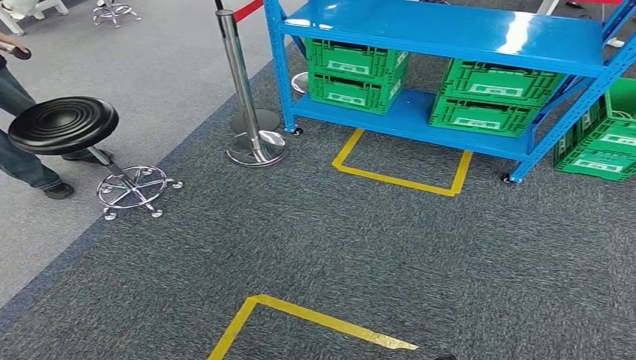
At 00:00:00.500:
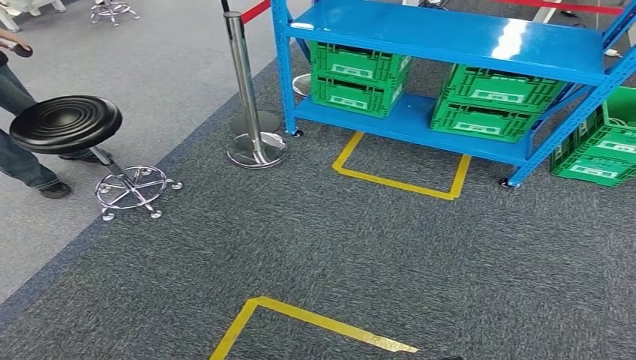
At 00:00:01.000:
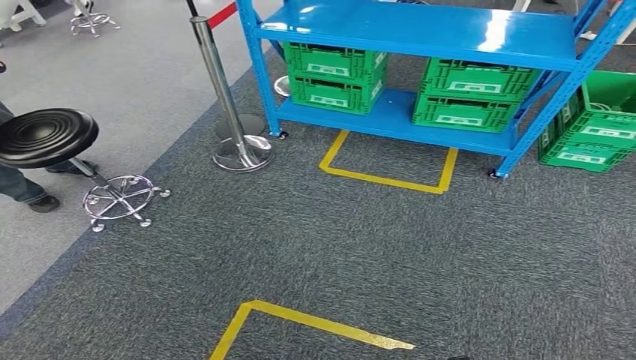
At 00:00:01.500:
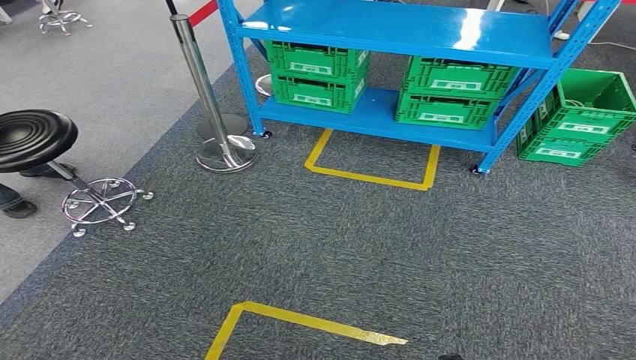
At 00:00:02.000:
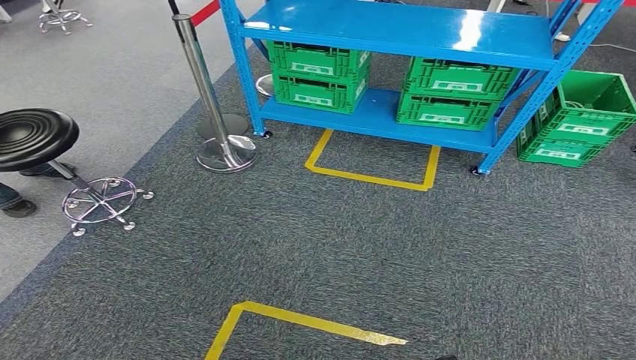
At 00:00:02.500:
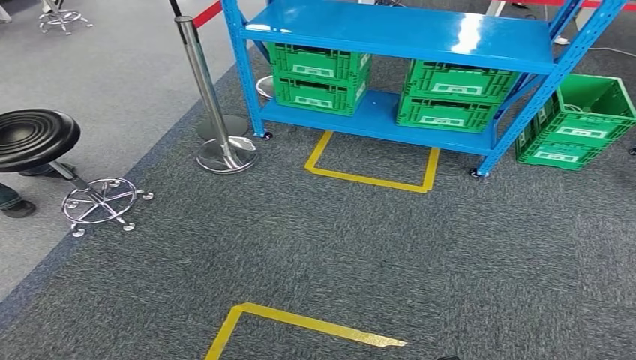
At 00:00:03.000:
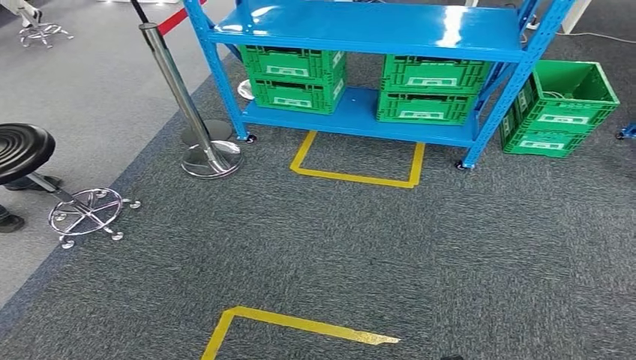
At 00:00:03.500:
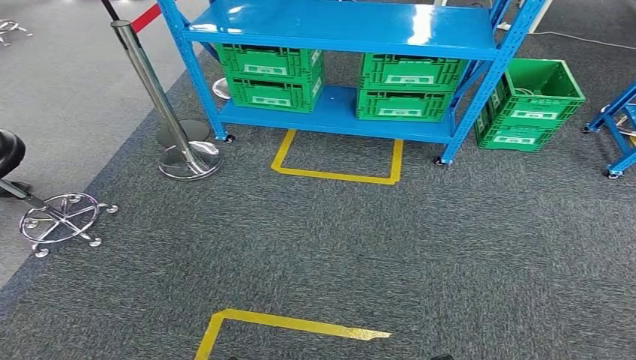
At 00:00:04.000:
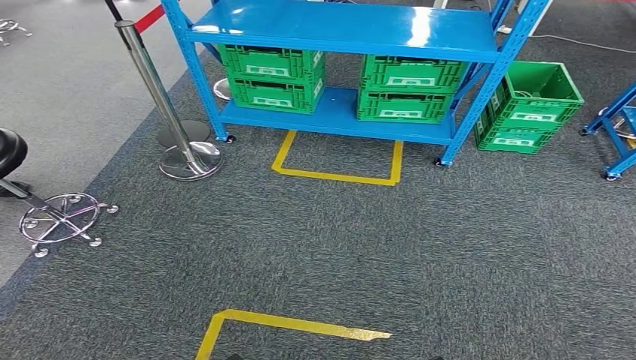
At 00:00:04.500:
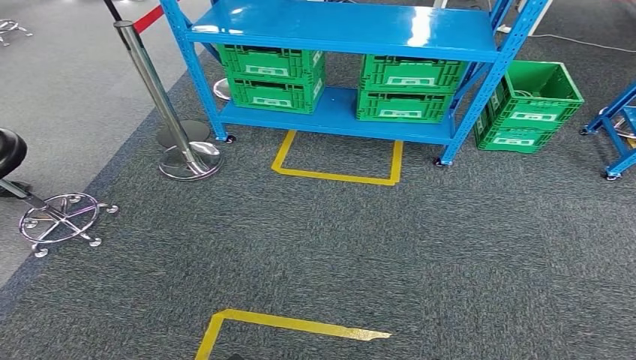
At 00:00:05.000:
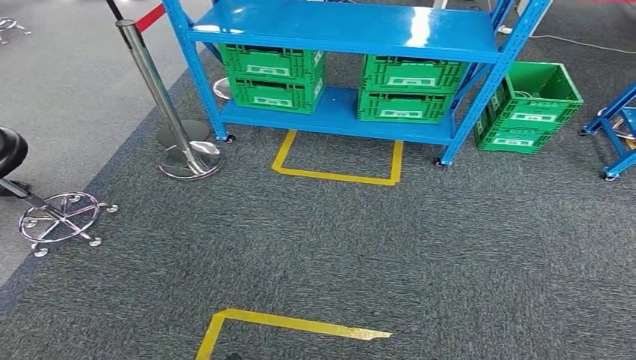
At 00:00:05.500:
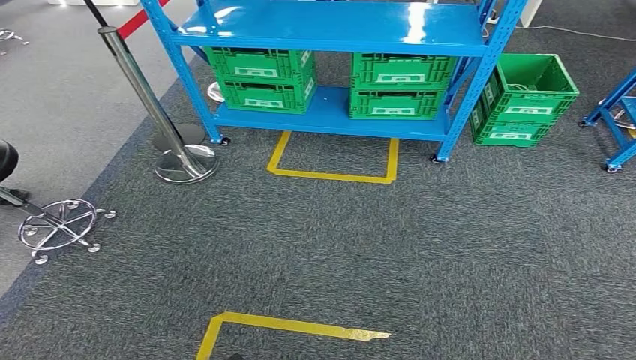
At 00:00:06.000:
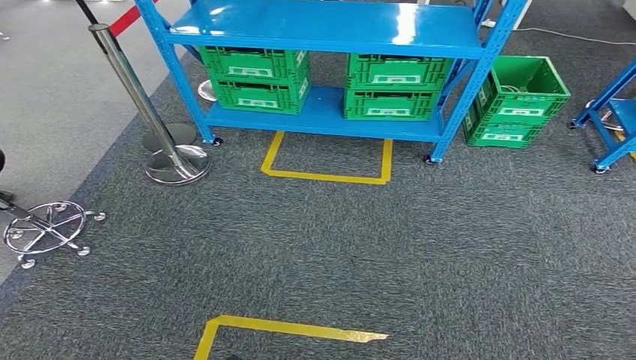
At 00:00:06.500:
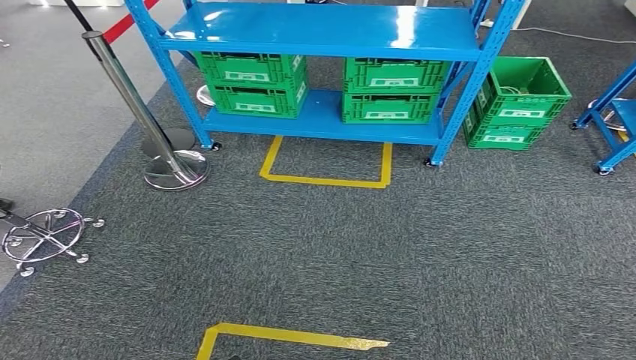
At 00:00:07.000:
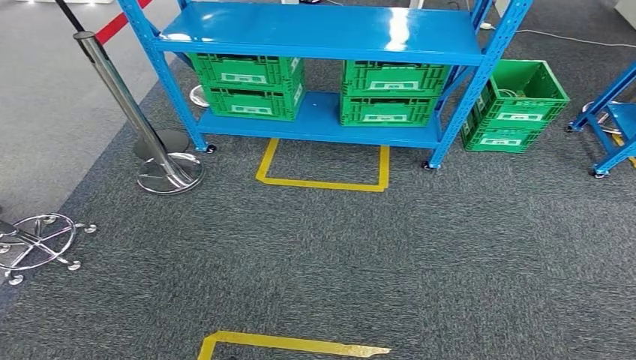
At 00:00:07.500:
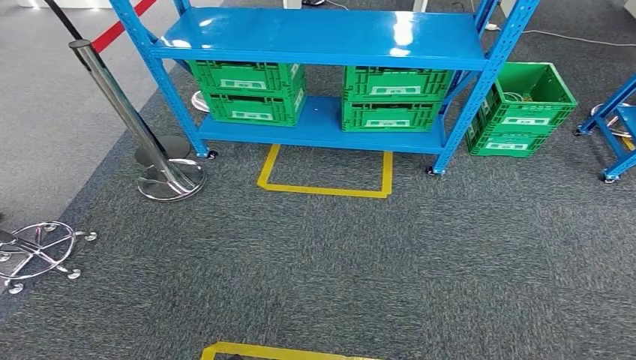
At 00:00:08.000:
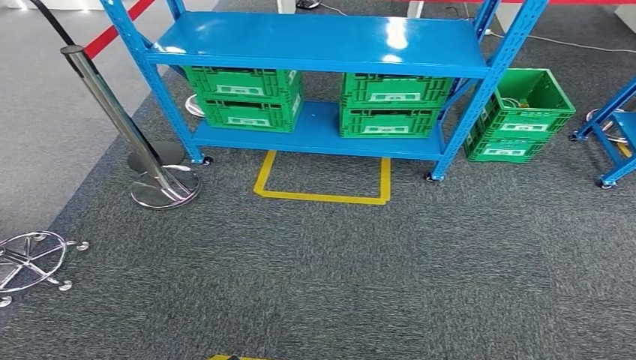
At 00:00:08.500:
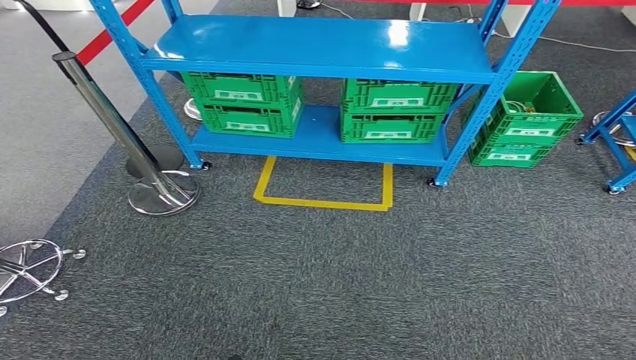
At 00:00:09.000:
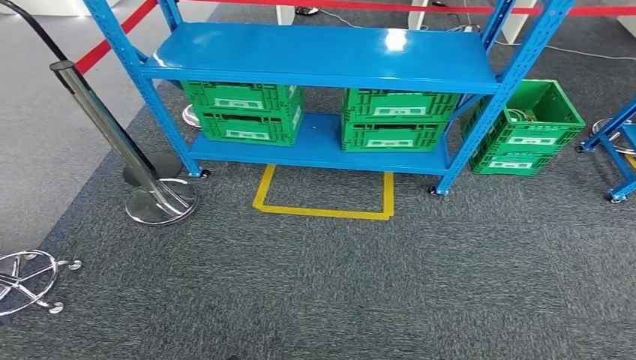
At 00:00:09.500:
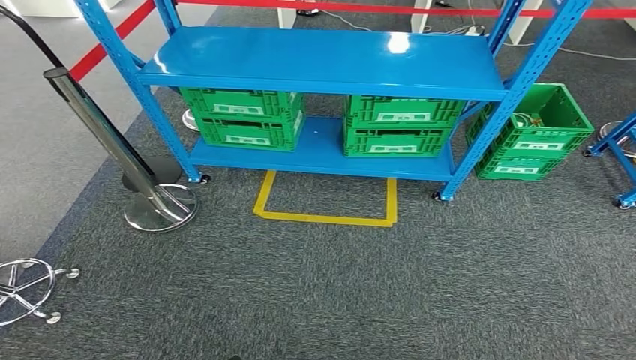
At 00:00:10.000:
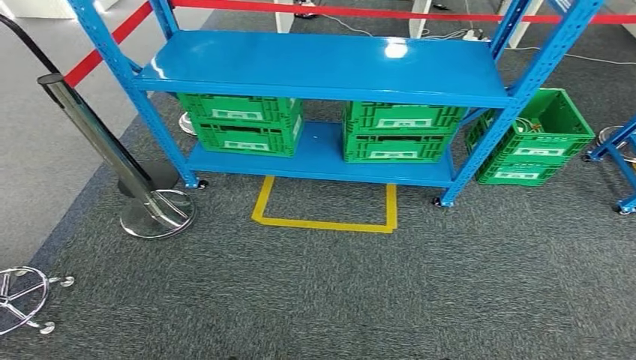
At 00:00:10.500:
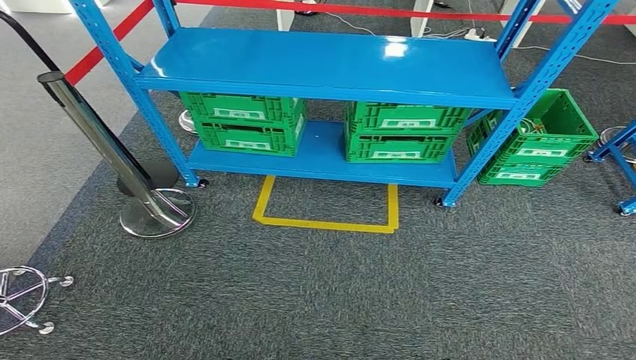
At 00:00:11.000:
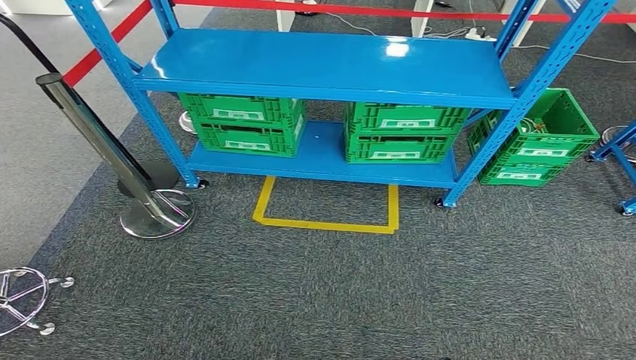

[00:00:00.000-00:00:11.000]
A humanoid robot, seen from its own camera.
Step, 00:00:00.000 to 00:00:11.000: Move to the initial position of the workbench.
00:00:03.500 to 00:00:05.500: The hands make only small movements.

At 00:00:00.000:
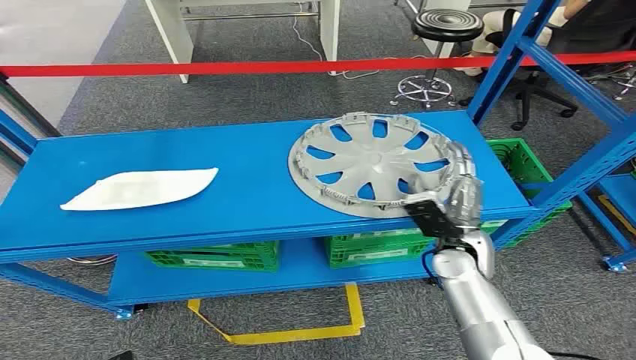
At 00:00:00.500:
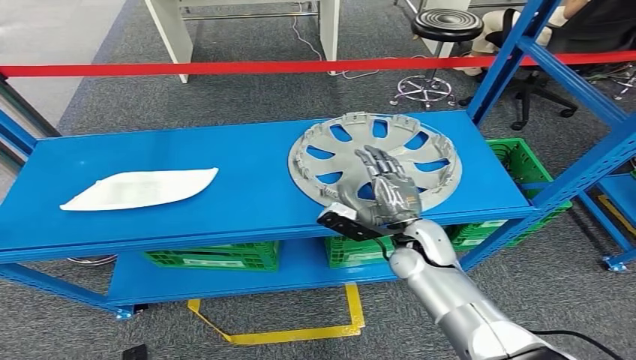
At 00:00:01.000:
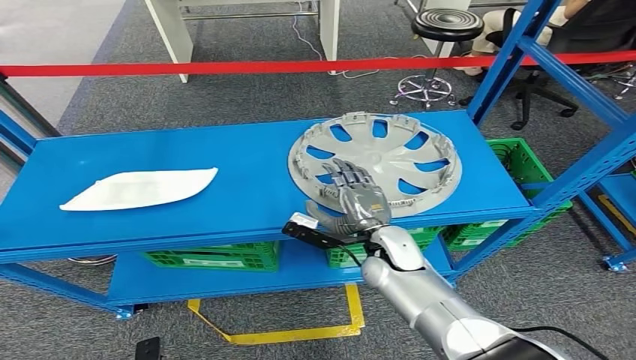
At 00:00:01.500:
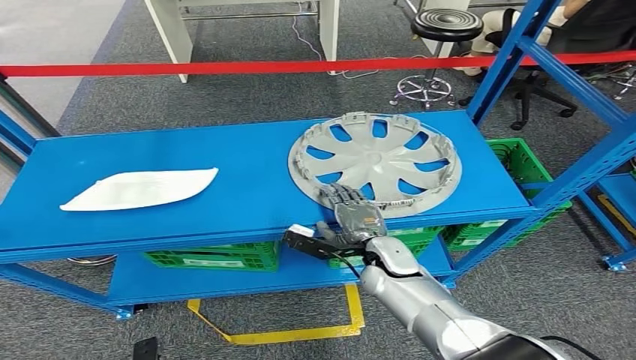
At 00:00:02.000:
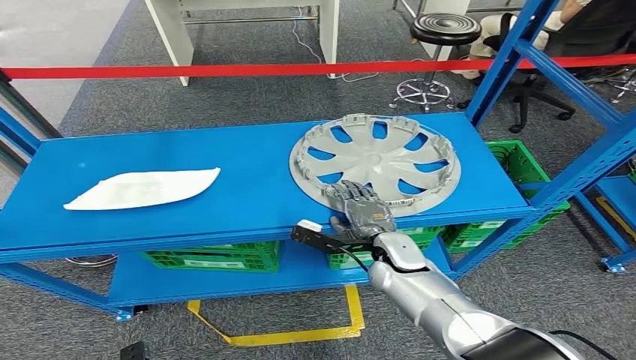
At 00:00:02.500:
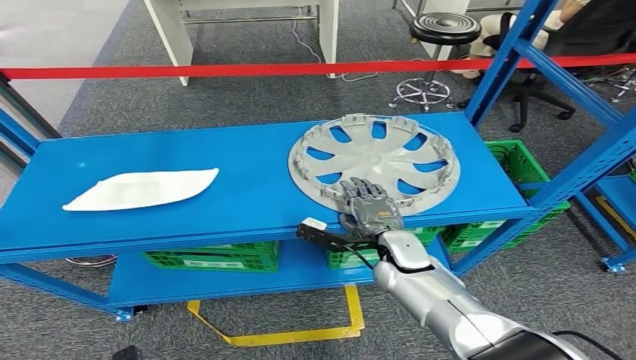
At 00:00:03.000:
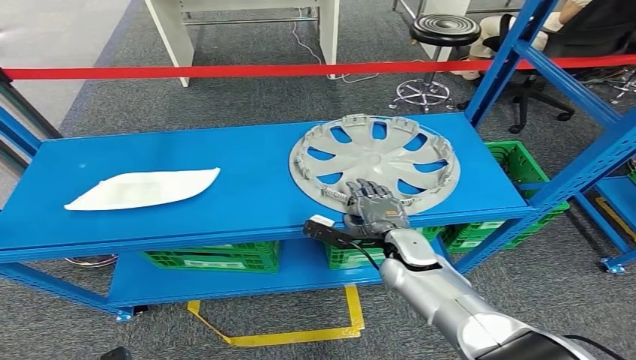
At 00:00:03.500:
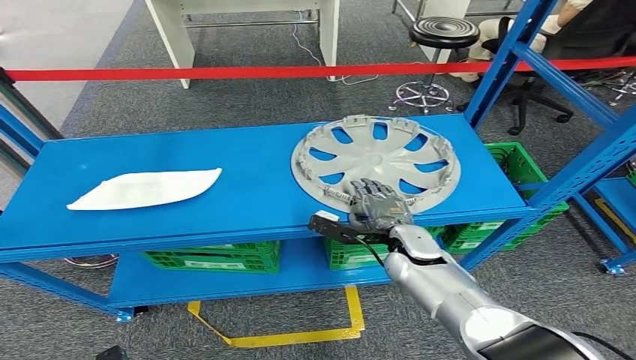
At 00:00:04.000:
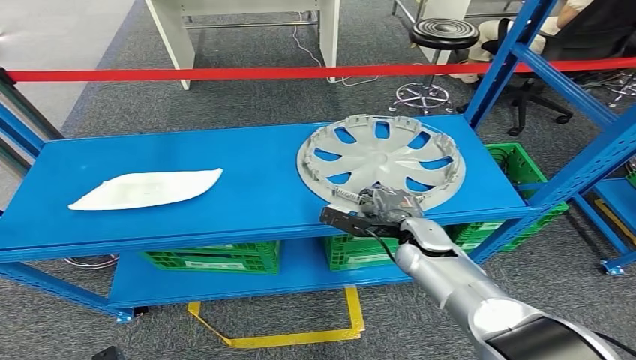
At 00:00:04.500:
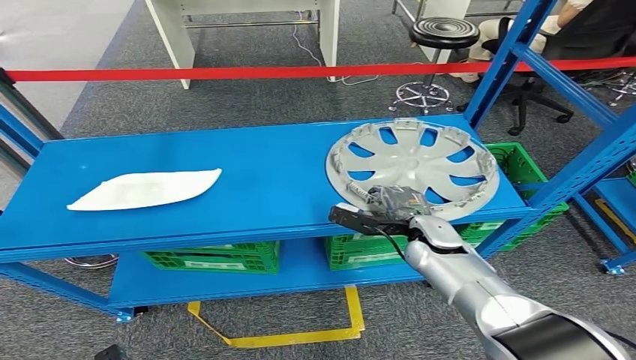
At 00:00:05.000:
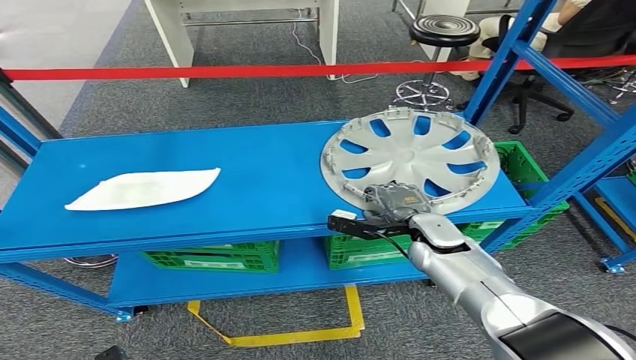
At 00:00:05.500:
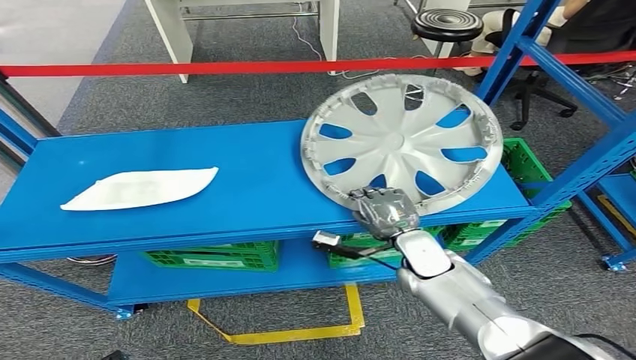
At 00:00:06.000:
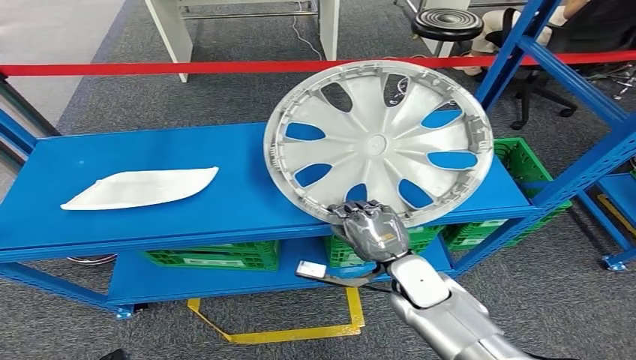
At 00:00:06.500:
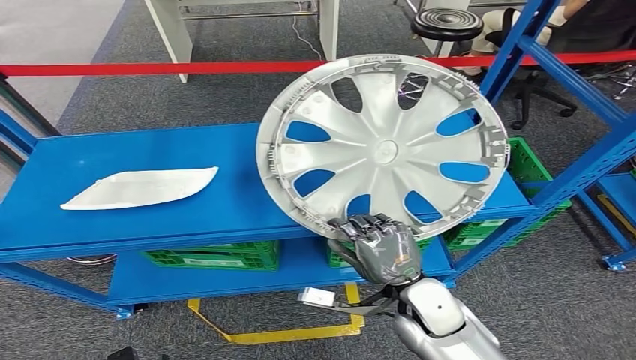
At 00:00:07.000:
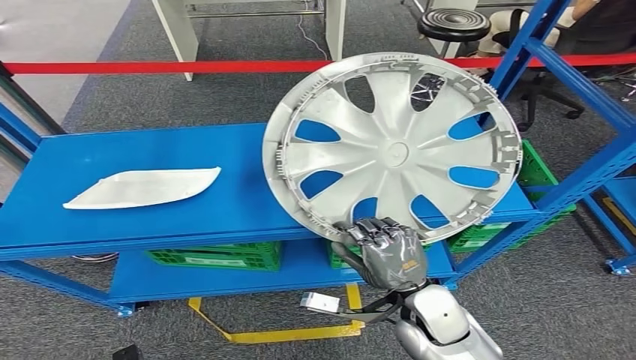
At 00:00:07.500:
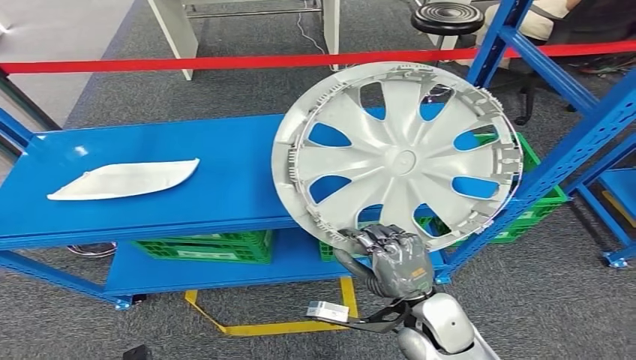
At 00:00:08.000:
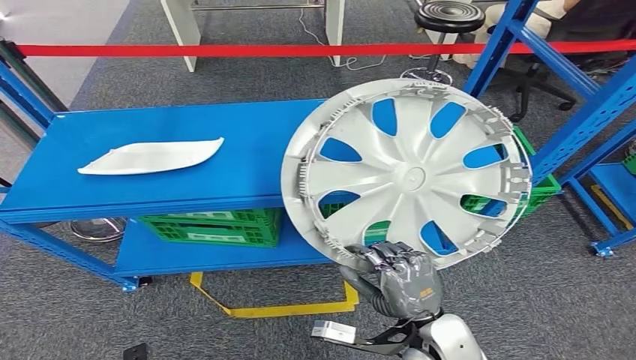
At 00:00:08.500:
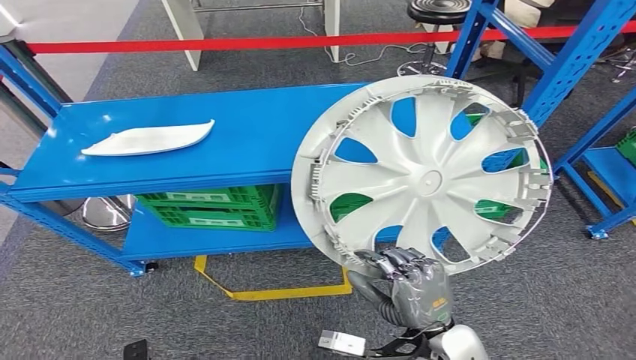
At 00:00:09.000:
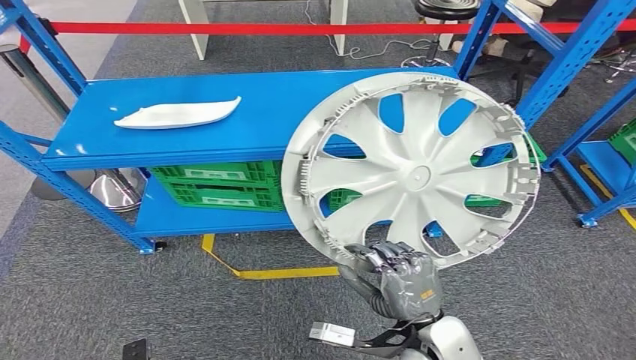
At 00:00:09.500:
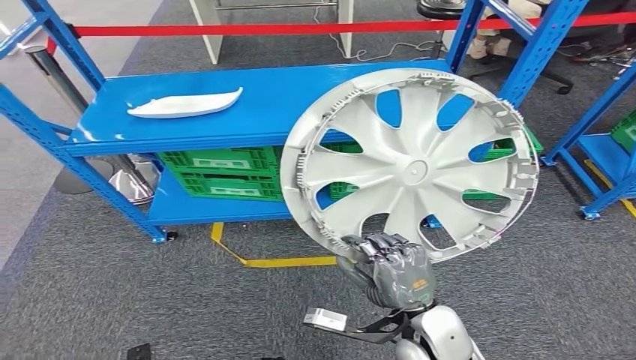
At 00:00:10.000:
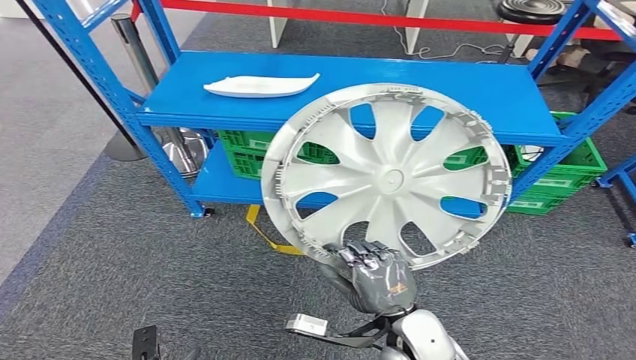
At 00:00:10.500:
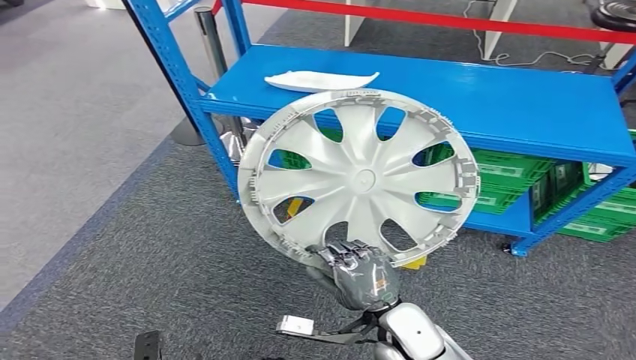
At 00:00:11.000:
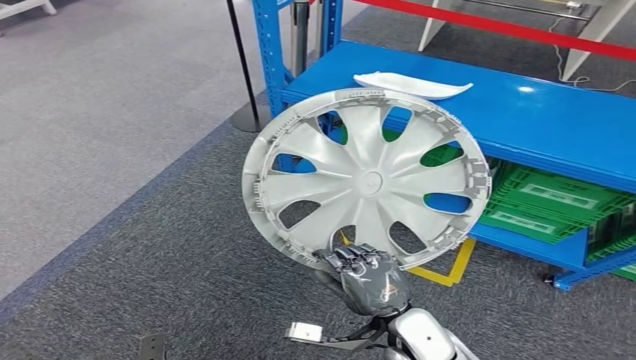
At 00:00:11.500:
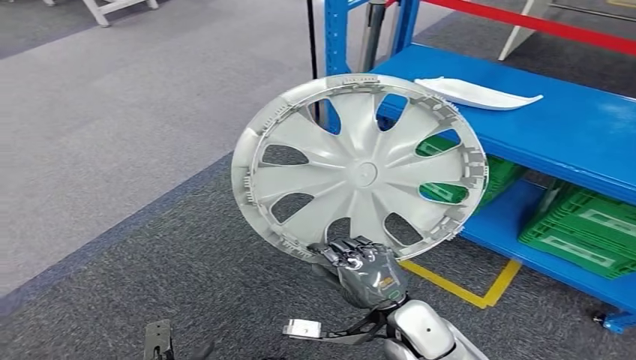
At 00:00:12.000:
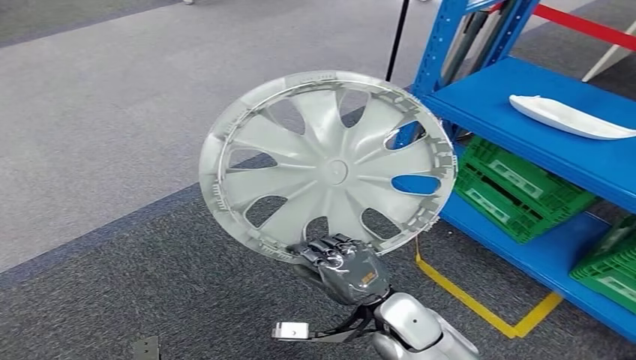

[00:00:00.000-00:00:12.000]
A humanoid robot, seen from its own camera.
Step, 00:00:00.000 to 00:00:07.500: Take small components from the rack.
00:00:02.000 to 00:00:04.000: The right hand goes some 5 cm to the right.
